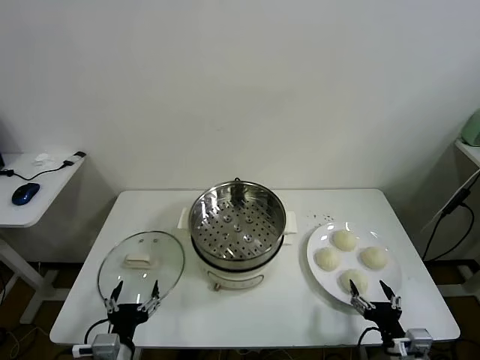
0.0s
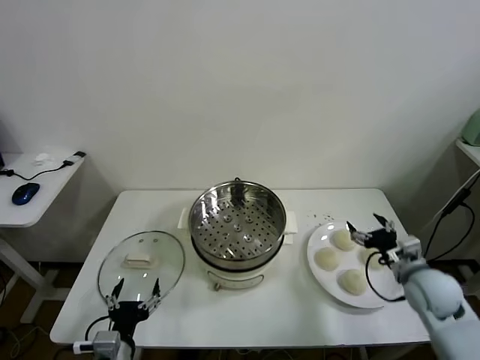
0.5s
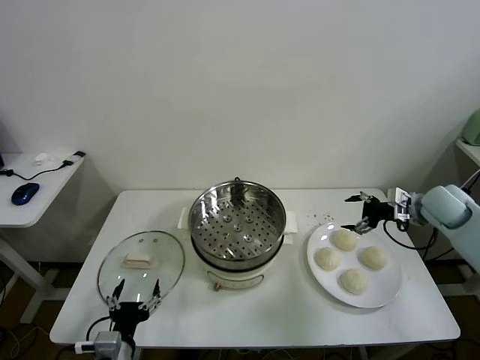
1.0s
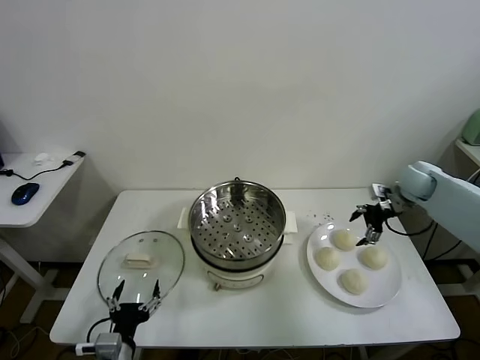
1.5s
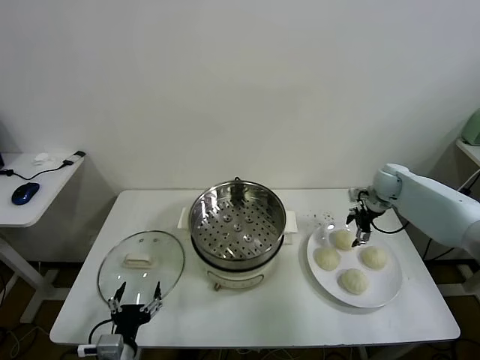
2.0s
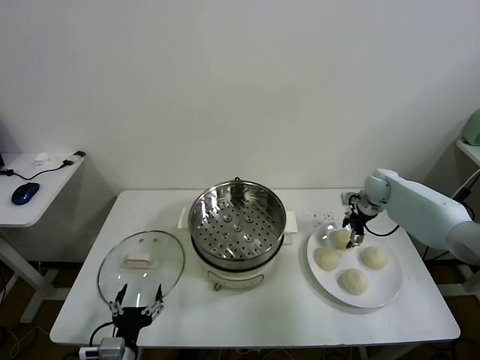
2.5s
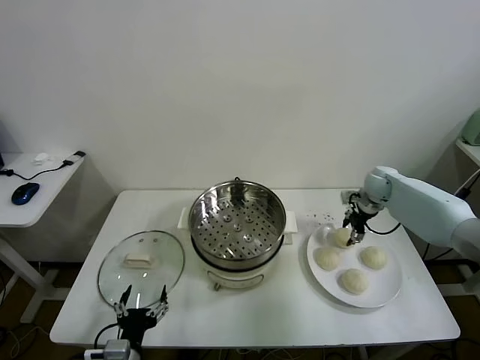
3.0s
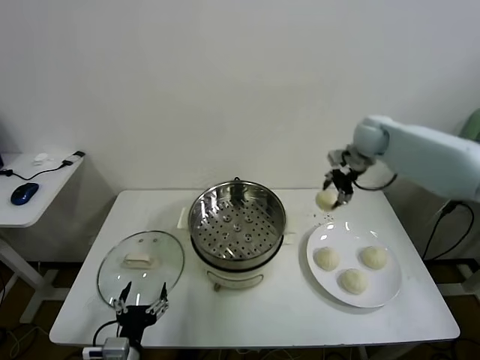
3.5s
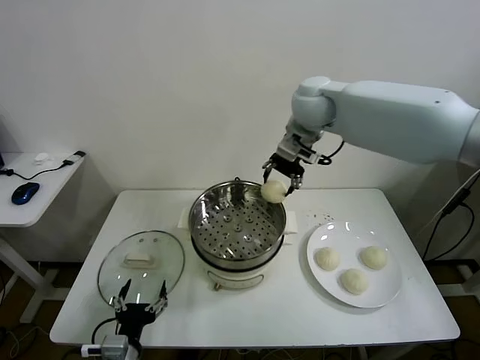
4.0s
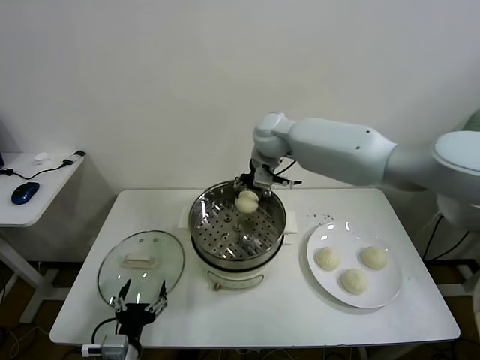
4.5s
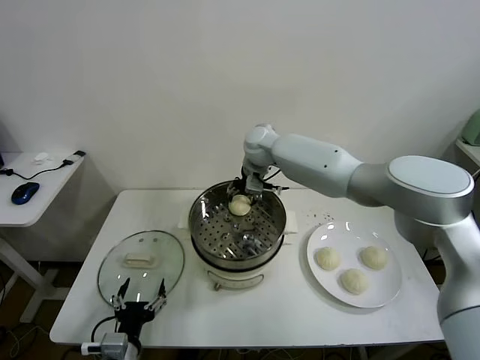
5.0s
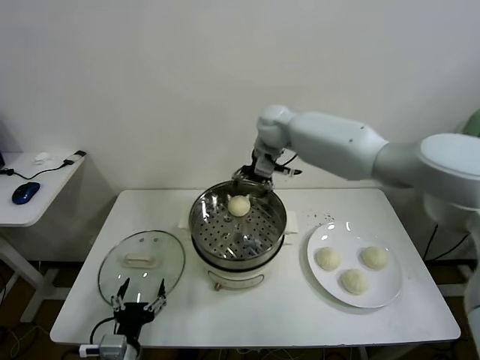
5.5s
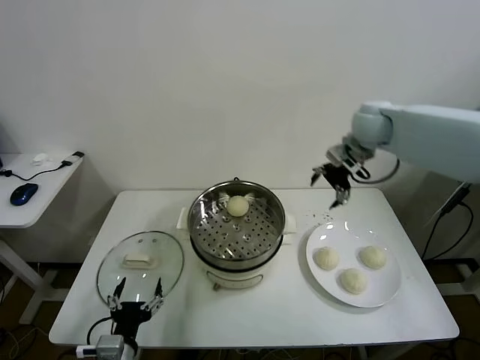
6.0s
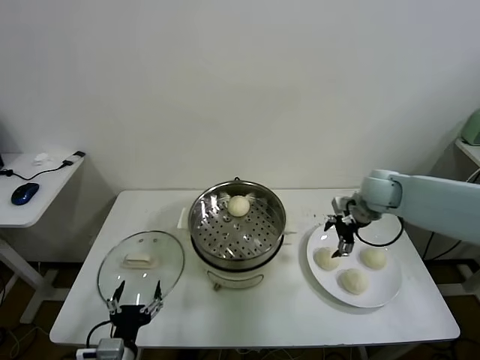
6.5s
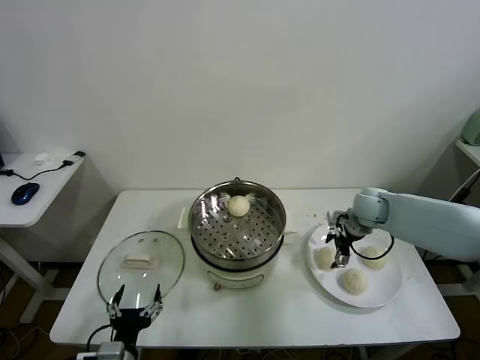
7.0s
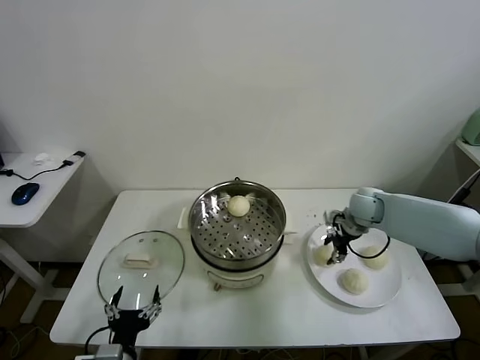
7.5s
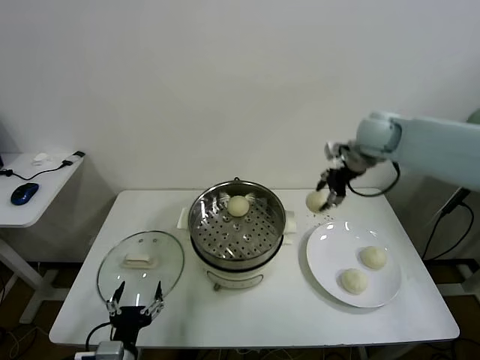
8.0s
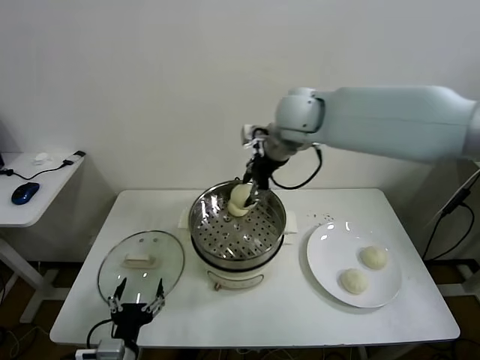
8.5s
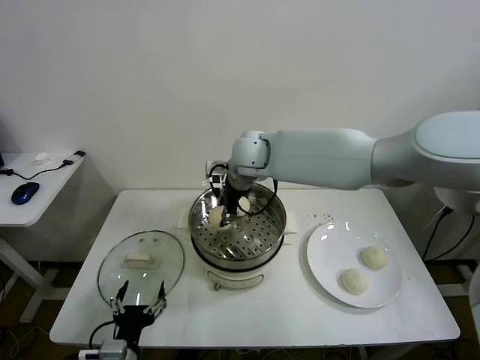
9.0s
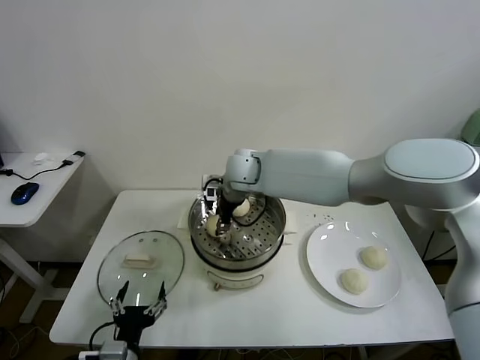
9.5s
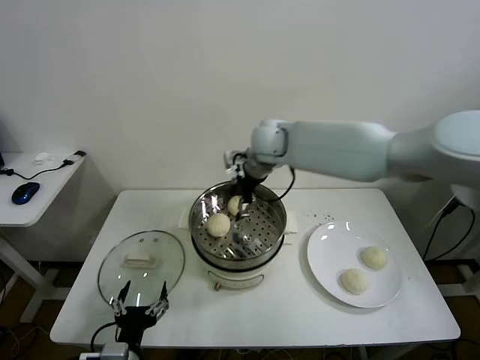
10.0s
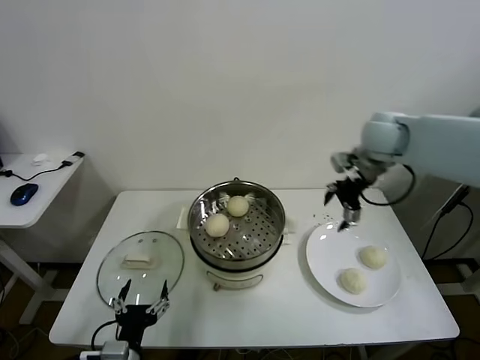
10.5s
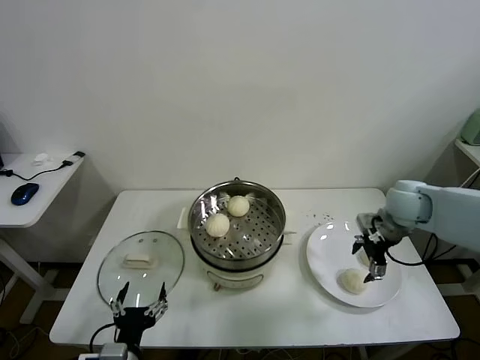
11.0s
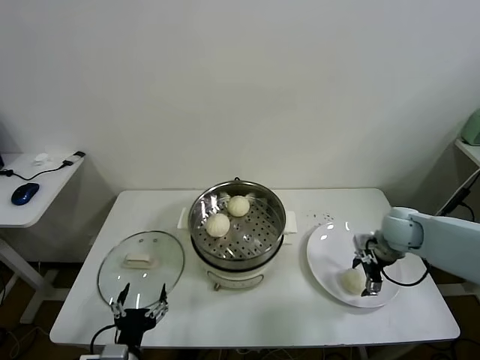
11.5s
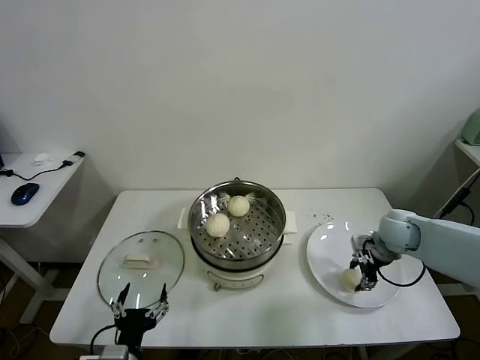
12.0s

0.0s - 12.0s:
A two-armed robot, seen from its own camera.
Task of the whole recording: take steamed baozi put them in steamer.
Step, 0.0s - 2.5s: Grasp the baozi in the plate with right gripper.
Step, 3.0s - 5.0s: Place the baozi on the steamer with right gripper.
Step, 5.5s - 7.0s: Grasp the baozi in the plate with right gripper.
Step, 8.0s - 9.5s: Place the baozi on the steamer with right gripper.
Step, 10.0s - 11.5s: Grasp the baozi in the plate with right gripper.
2.0s - 4.0s: The right gripper travels to the left and upward by about 35 cm, and closes up.
4.0s - 6.0s: The right gripper moves to the right, about 20 cm, and opens its fingers.
6.0s - 8.0s: The right gripper reaches about 20 cm downward, then returns, and closes its fingers.
8.0s - 10.0s: The right gripper heads to the left, covering some 20 cm, and opens.
10.0s - 12.0s: The right gripper heads to the right, downward and backward, covering some 35 cm, and closes.

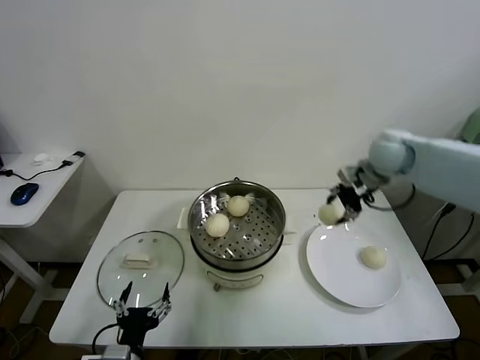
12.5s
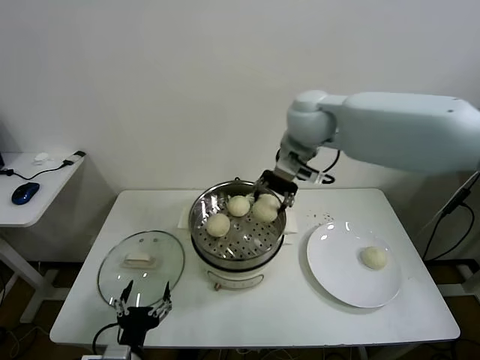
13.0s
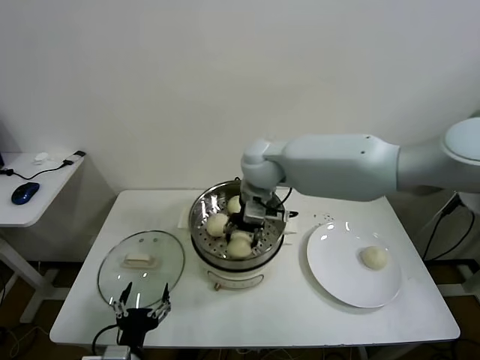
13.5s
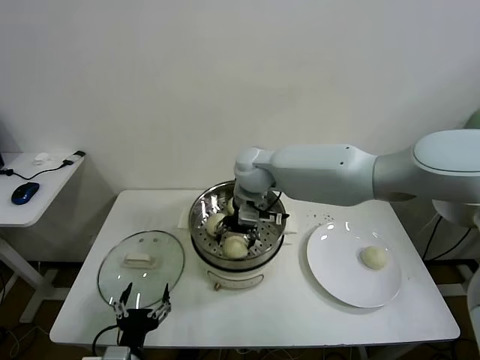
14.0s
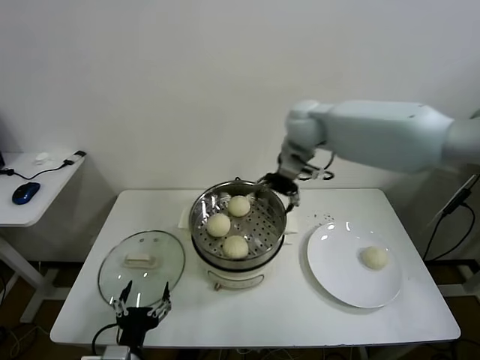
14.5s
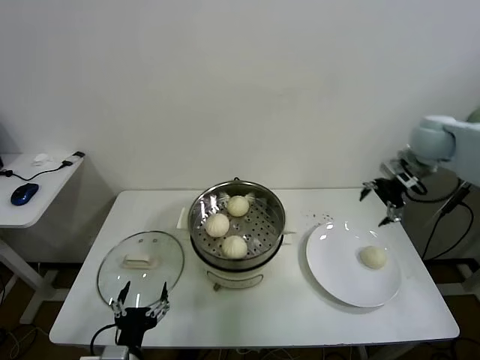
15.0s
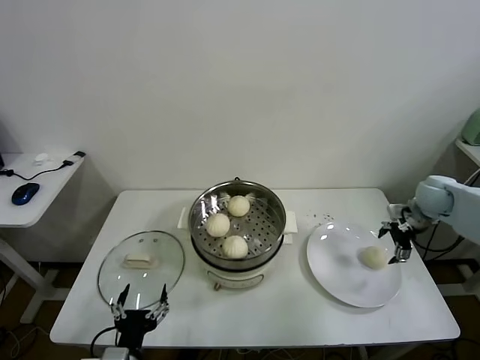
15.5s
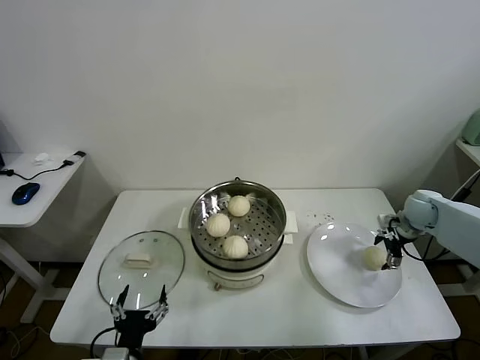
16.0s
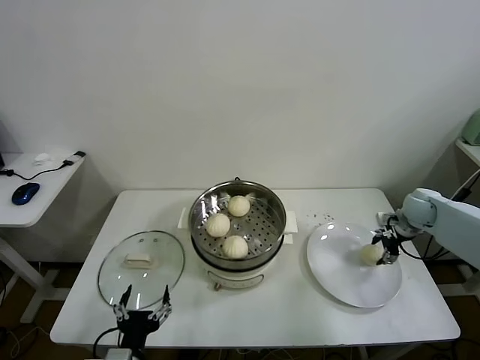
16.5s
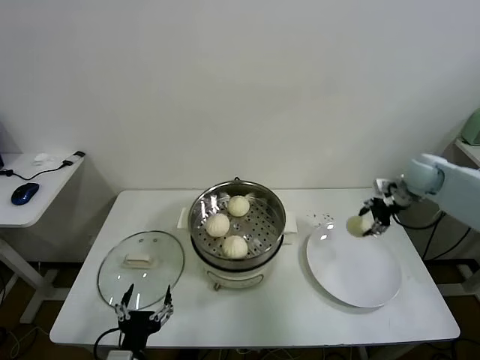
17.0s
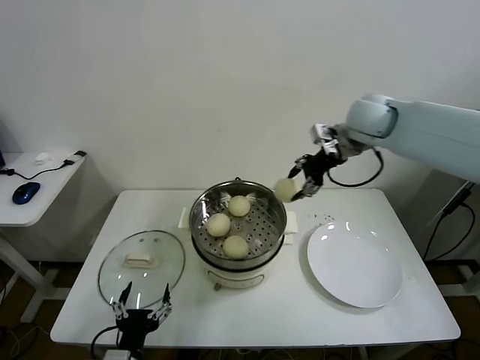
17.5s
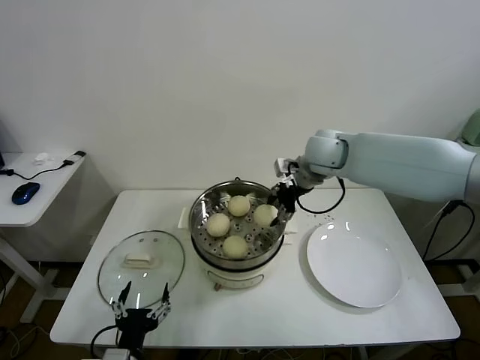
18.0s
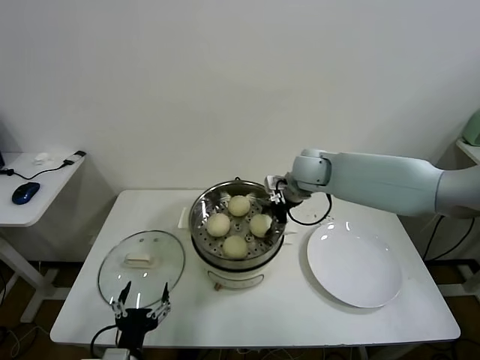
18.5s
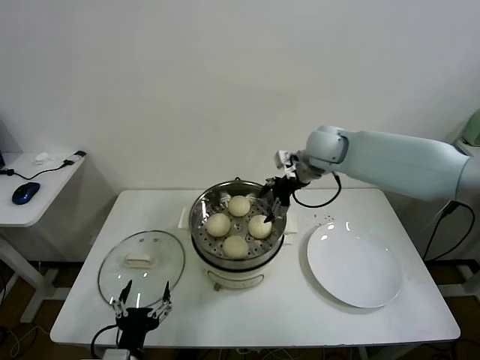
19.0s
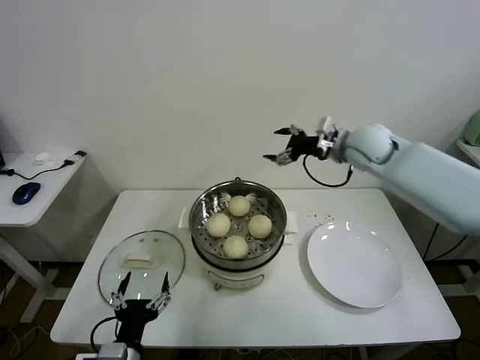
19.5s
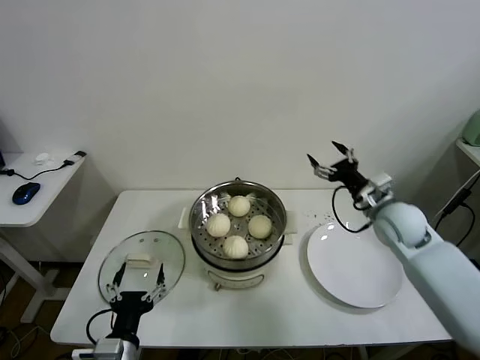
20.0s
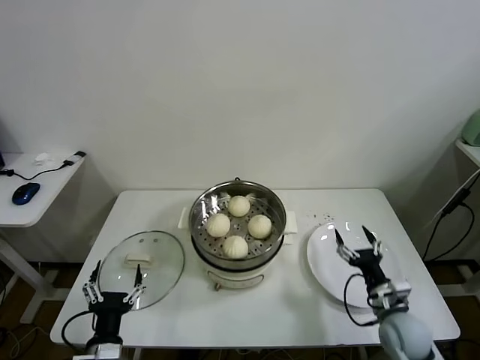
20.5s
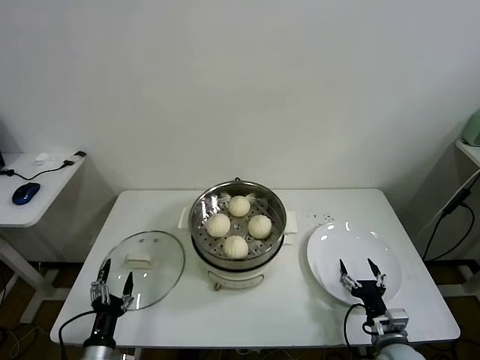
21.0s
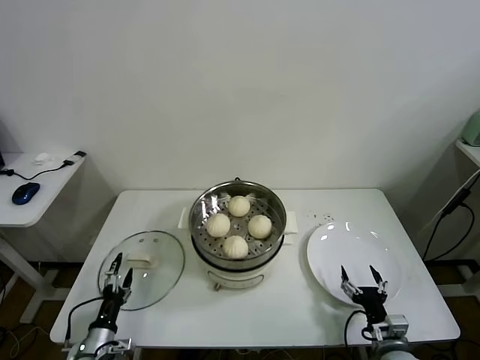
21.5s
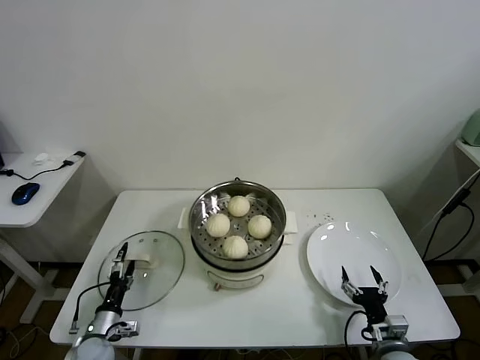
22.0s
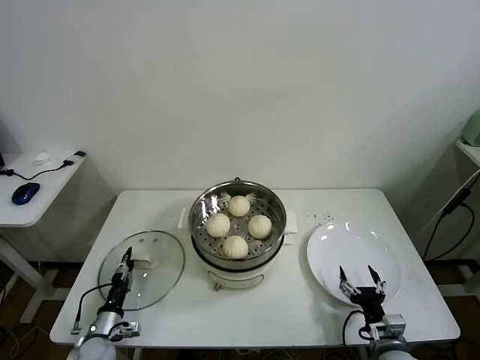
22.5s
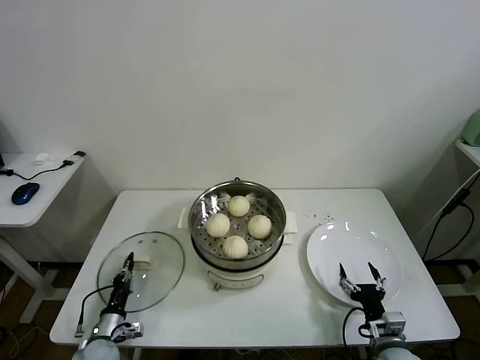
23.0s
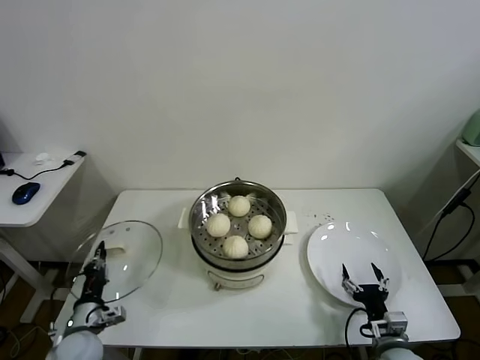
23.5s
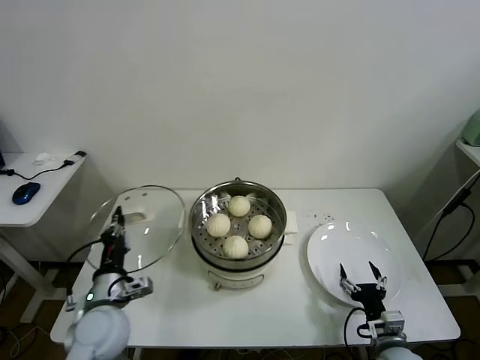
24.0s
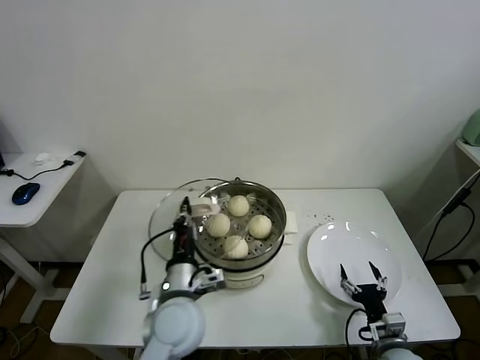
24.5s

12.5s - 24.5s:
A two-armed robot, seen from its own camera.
Task of the whole recording: take steamed baozi put them in steamer.
Step, 12.5s - 14.0s: Place the baozi on the steamer with right gripper.
Step, 14.5s - 16.0s: Grasp the baozi in the plate with right gripper.
Step, 16.5s - 18.5s: Place the baozi on the steamer with right gripper.
Step, 19.0s - 22.5s: Grasp the pot lid with left gripper.
12.5s - 14.5s: The right gripper shifts about 15 cm to the left, and opens up.
14.5s - 16.5s: The right gripper shifts about 40 cm to the right and downward, and closes.
16.5s - 18.5s: The right gripper travels to the left by approximately 30 cm.
18.5s - 20.5s: The right gripper heads backward, downward and to the right, covering roughly 40 cm, and opens up.
20.5s - 22.5s: The left gripper travels downward, to the left and forward by about 20 cm, and closes. The right gripper heads backward, covering approximately 5 cm.
22.5s - 24.5s: The left gripper heads to the right and upward, covering roughly 35 cm, and closes its fingers.

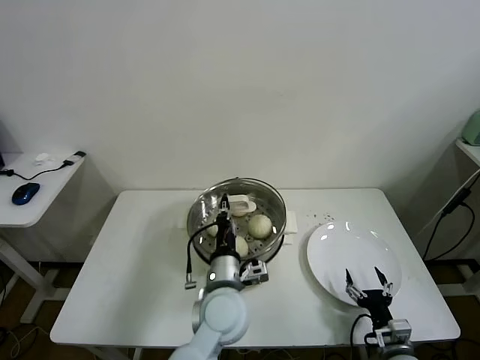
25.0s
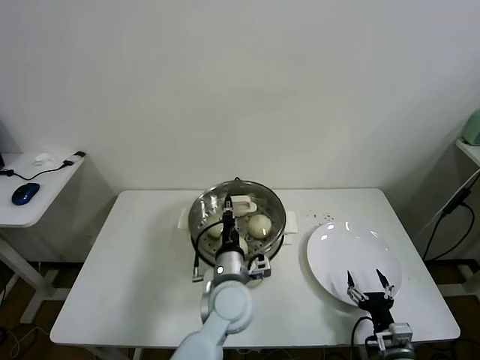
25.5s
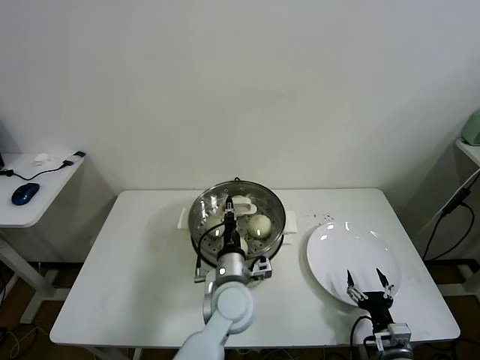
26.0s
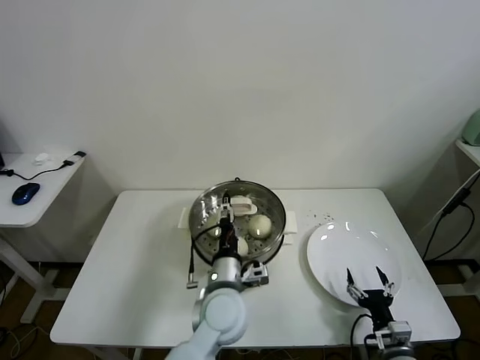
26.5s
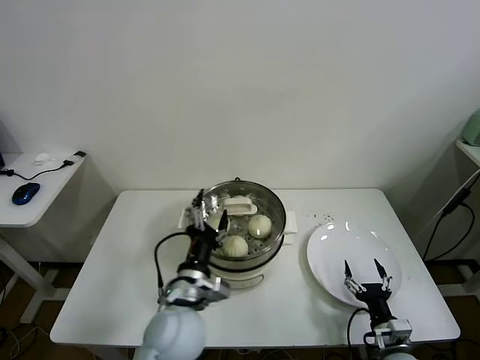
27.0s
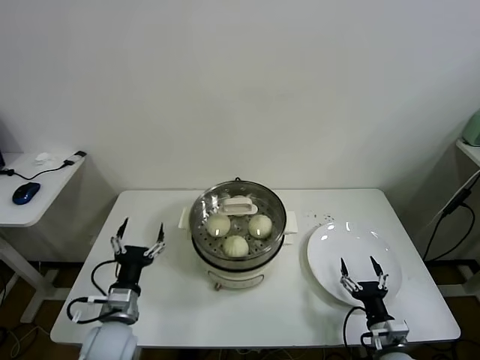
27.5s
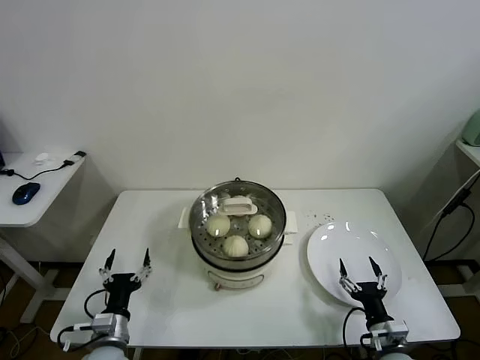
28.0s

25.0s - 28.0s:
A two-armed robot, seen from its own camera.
Task of the whole recording: take steamed baozi put them in steamer.
25.0s - 26.5s: The left gripper opens.
26.5s - 28.0s: The left gripper goes about 30 cm to the left and downward.
